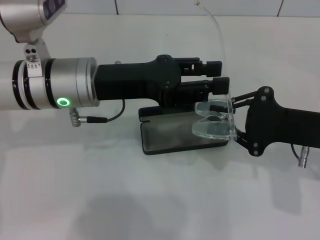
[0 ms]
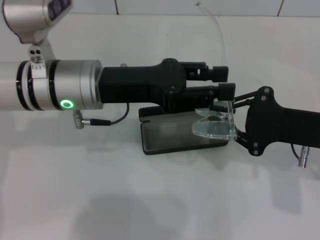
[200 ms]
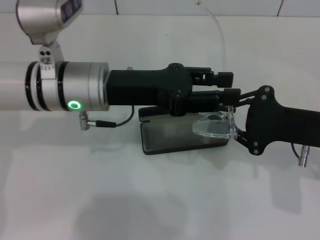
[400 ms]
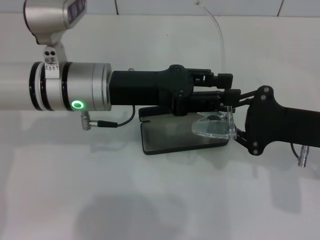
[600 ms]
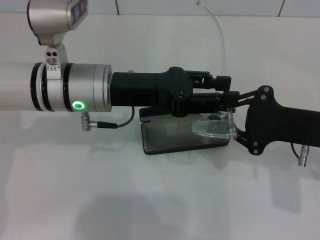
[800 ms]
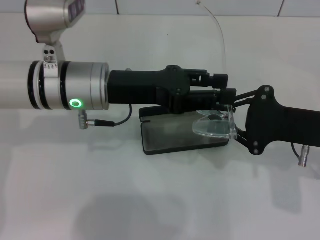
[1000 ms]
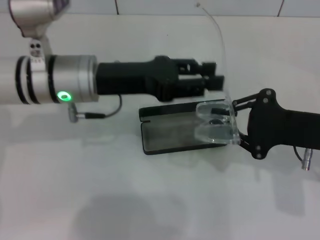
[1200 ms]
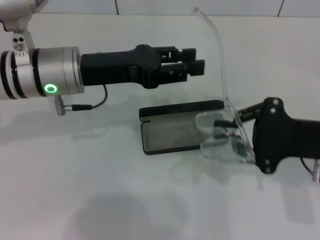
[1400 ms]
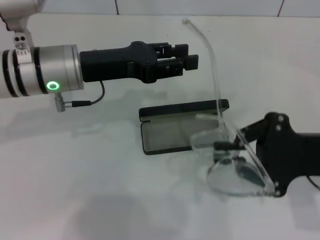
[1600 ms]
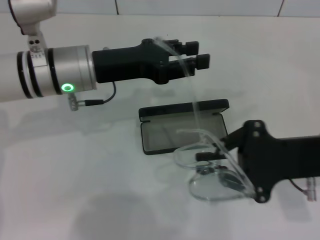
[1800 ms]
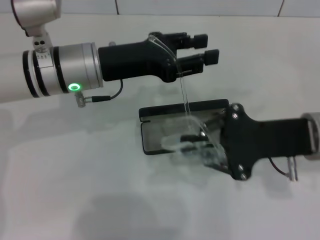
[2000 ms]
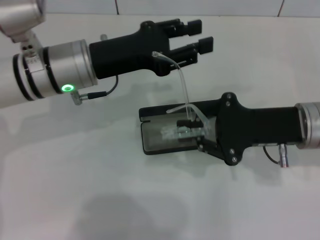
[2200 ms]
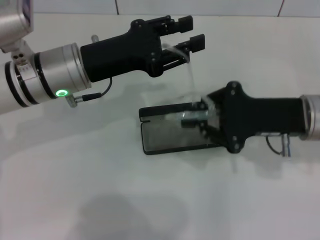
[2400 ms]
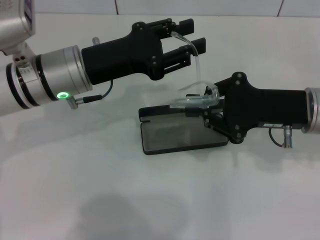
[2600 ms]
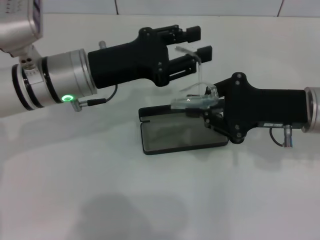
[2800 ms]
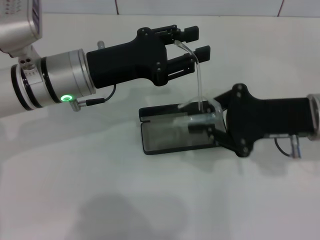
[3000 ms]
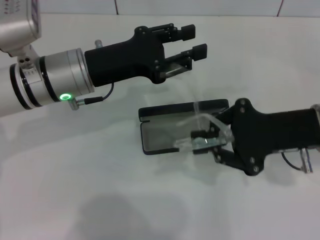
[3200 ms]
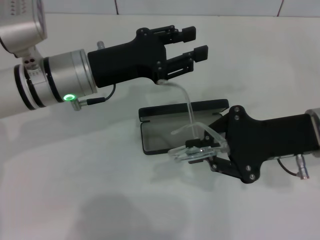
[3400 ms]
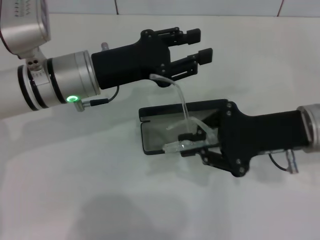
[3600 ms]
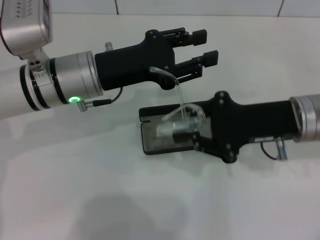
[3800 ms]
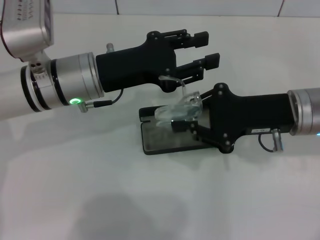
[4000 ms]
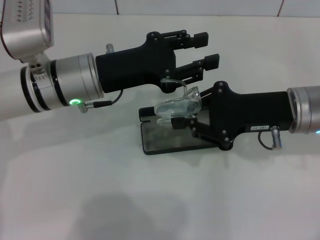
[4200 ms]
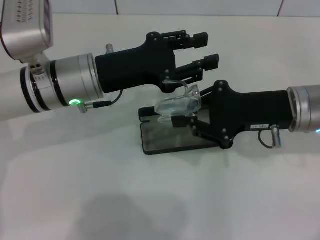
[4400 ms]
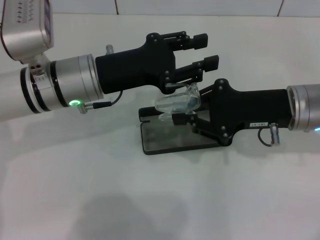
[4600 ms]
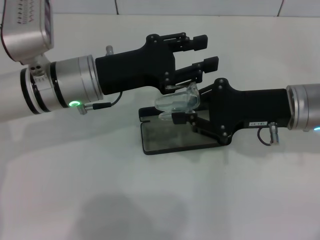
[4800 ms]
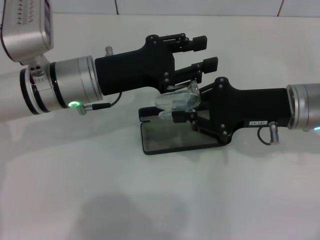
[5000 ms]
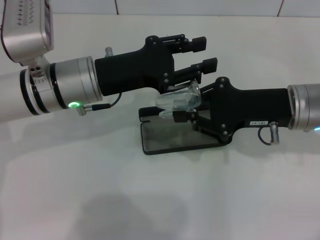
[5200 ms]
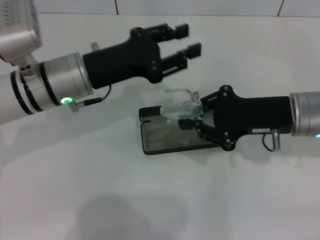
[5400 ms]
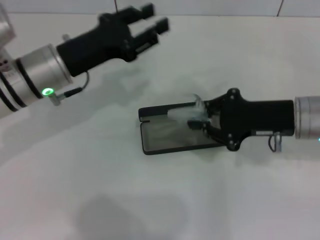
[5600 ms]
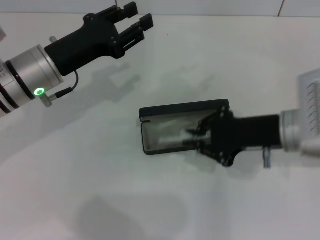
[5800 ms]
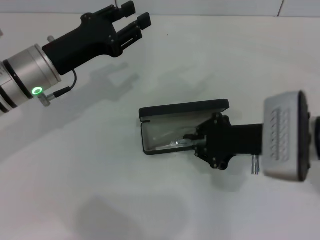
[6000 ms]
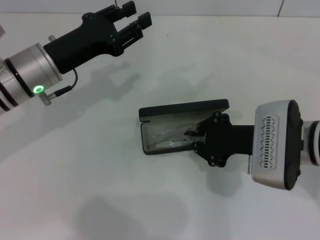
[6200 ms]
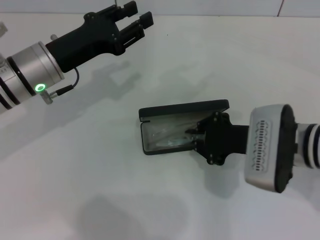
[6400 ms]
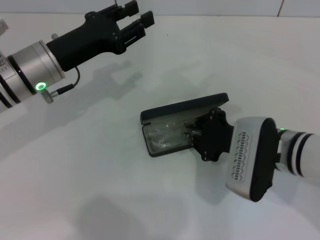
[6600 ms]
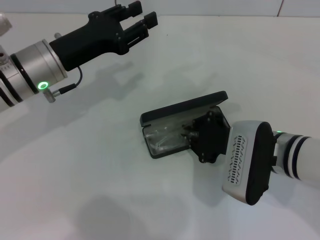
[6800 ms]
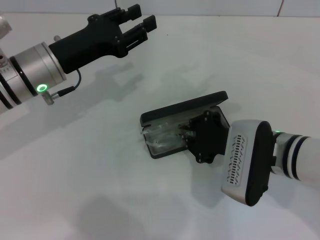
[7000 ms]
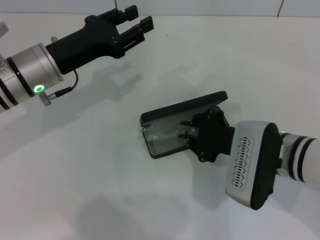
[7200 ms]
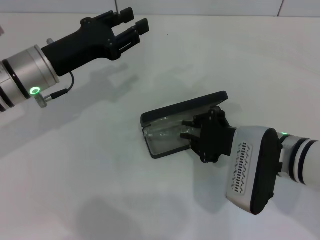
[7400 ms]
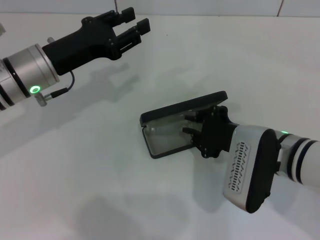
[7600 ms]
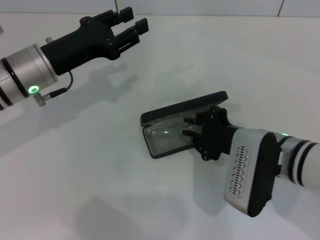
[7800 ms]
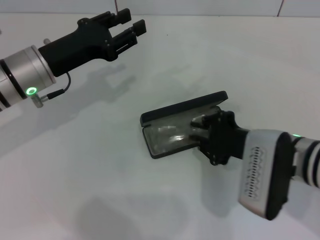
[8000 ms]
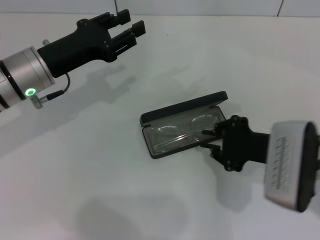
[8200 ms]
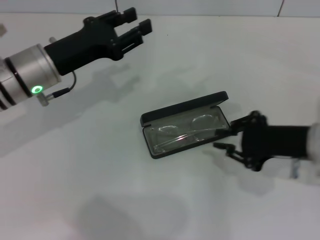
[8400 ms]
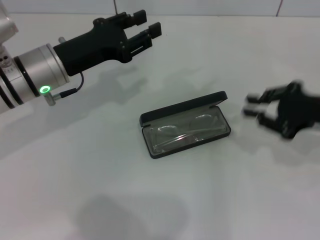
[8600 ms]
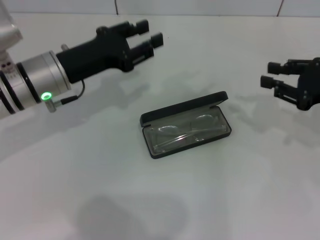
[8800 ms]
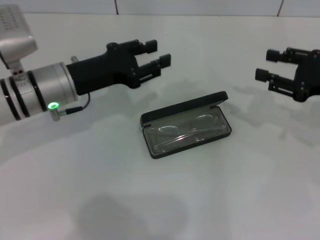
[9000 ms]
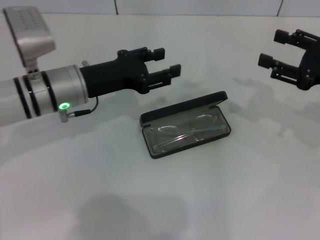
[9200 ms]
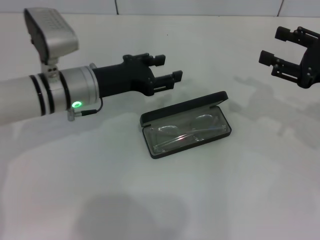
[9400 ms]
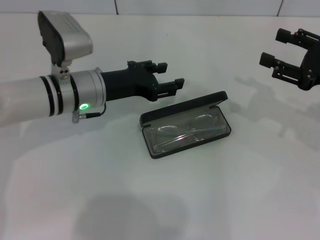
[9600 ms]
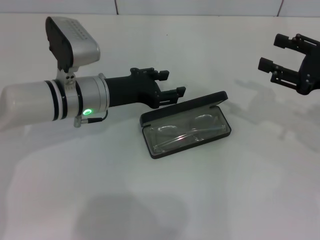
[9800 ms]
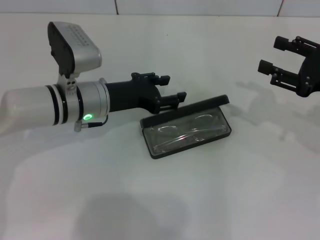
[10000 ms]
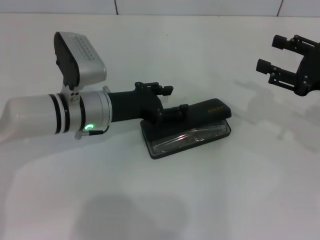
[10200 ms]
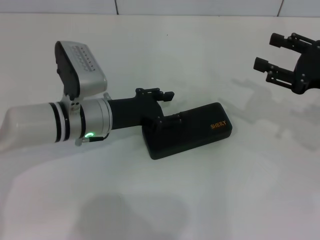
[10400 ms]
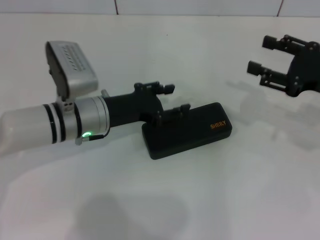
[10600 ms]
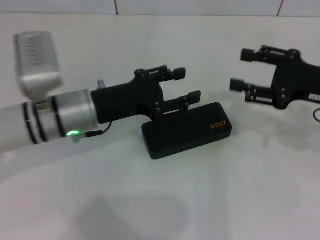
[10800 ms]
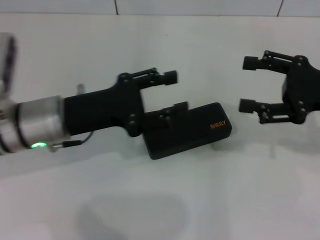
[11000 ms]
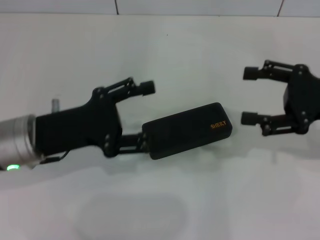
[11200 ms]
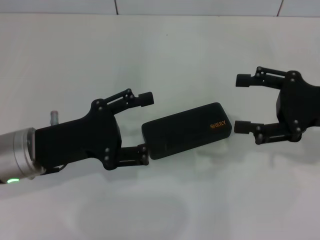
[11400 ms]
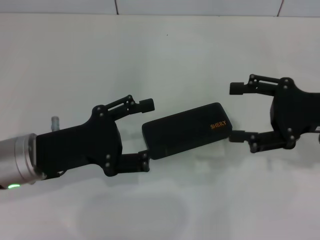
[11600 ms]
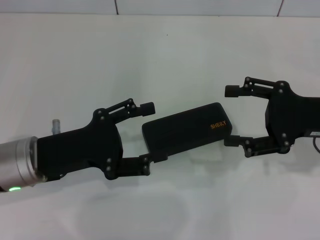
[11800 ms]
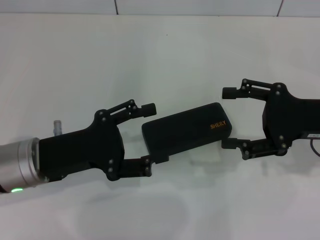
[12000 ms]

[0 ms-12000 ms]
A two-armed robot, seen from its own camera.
Step, 0 ms to 4800 ms: Fold the frame with your left hand.
Step, 5000 ms to 8000 ms: Put the glasses into the case with your right hand.
Step, 8200 ms to 10200 ms: Close the glasses case with your left hand.
1600 ms to 3000 ms: The right gripper goes about 5 cm forward.
3000 ms to 4400 ms: The grippers stay close to where they were, moving slightly.
4400 ms to 6000 ms: The left gripper is displaced to the left by roughly 5 cm.
7600 ms to 9000 ms: The right gripper travels to the right by roughly 15 cm.
9000 ms to 10400 ms: The left gripper moves about 5 cm. The right gripper opens its fingers.
10400 ms to 12000 ms: The left gripper is displaced backward and to the left by some 10 cm.

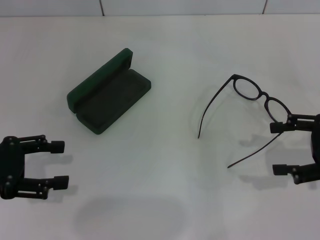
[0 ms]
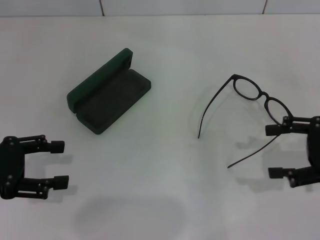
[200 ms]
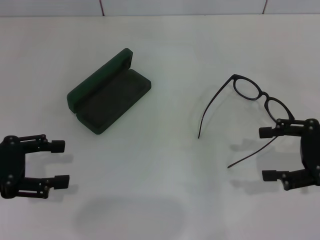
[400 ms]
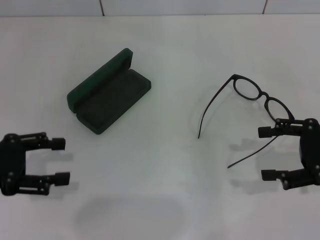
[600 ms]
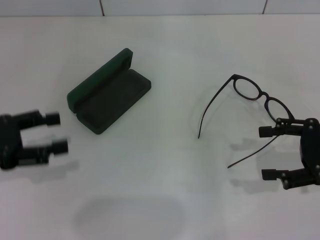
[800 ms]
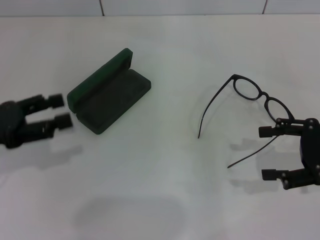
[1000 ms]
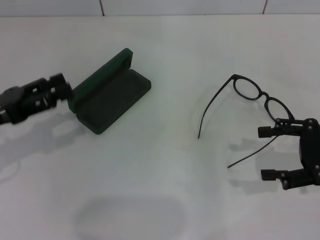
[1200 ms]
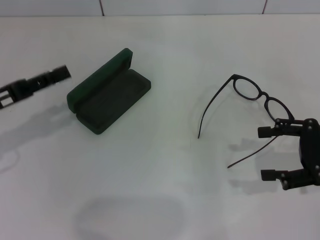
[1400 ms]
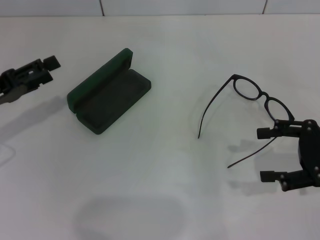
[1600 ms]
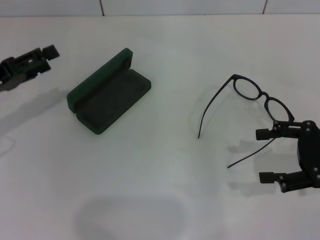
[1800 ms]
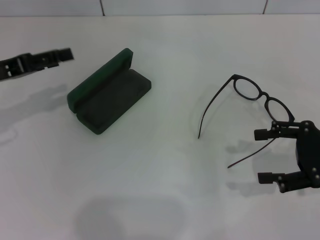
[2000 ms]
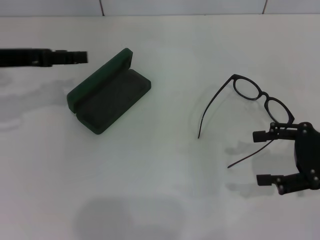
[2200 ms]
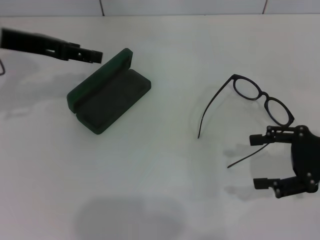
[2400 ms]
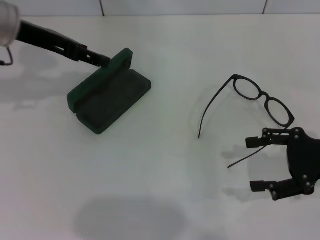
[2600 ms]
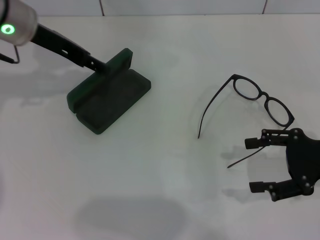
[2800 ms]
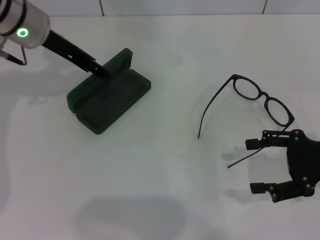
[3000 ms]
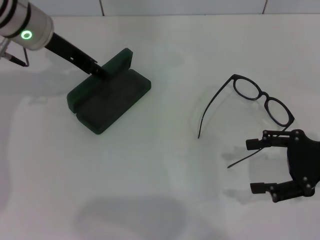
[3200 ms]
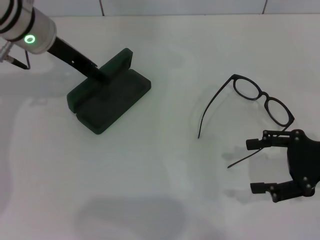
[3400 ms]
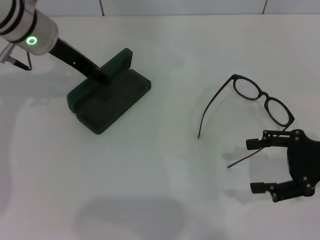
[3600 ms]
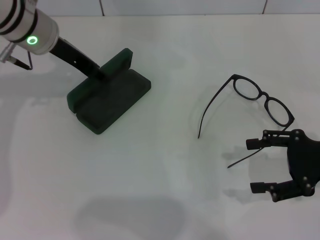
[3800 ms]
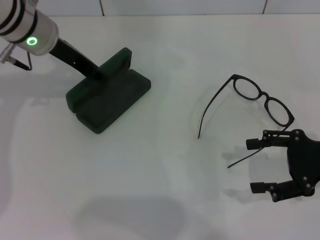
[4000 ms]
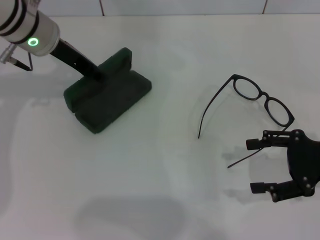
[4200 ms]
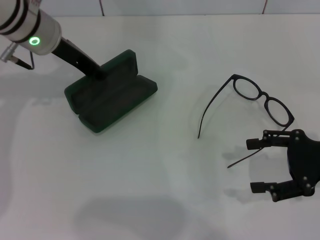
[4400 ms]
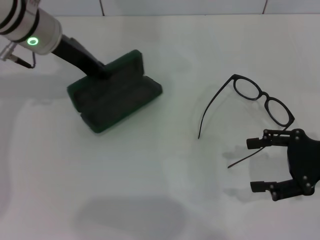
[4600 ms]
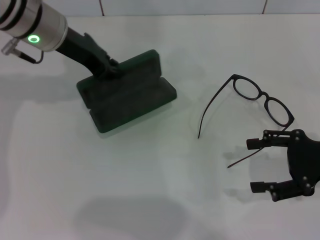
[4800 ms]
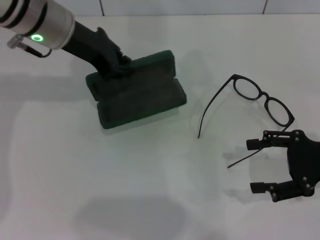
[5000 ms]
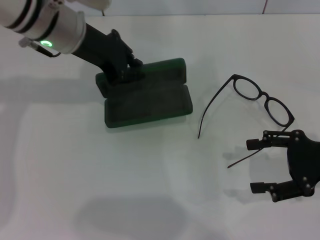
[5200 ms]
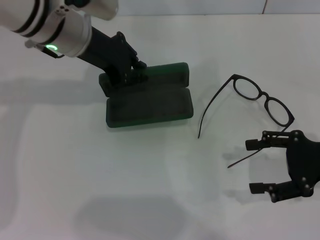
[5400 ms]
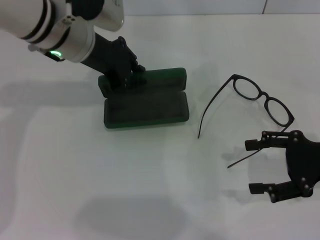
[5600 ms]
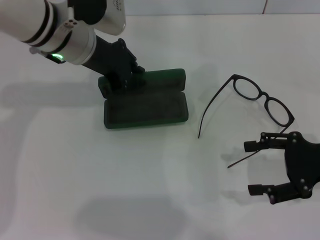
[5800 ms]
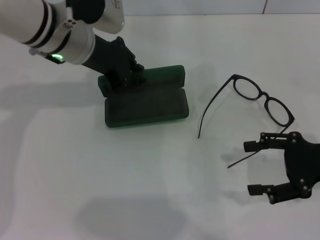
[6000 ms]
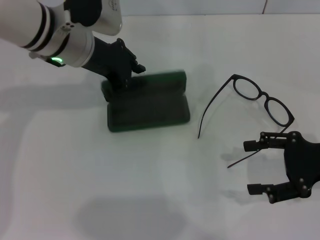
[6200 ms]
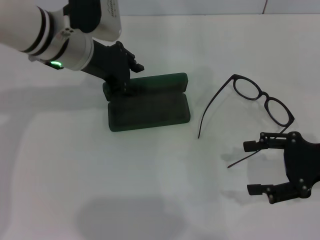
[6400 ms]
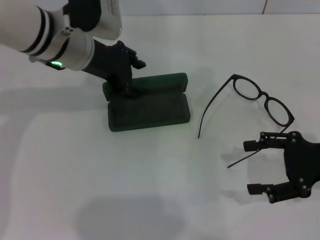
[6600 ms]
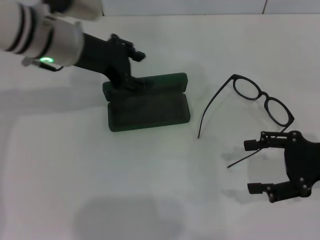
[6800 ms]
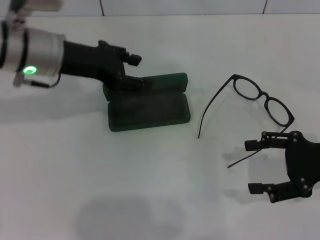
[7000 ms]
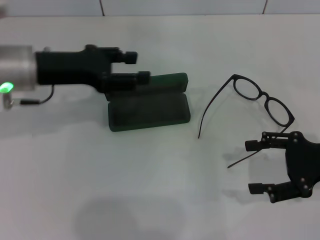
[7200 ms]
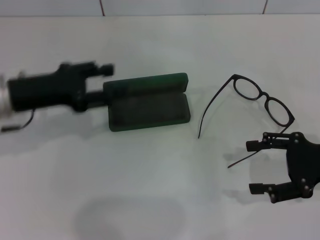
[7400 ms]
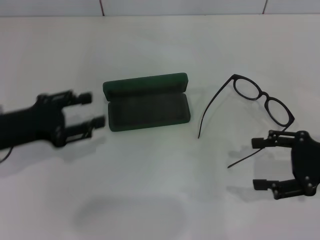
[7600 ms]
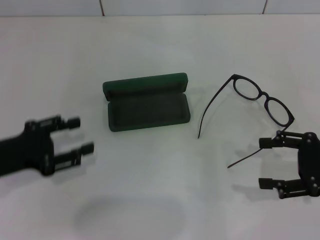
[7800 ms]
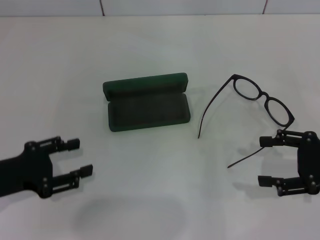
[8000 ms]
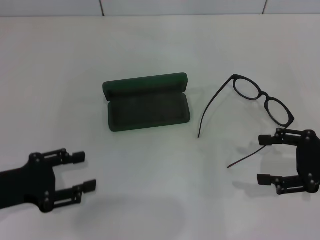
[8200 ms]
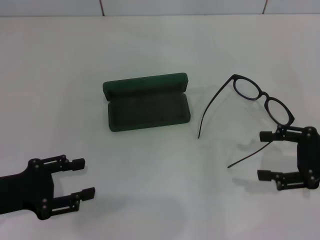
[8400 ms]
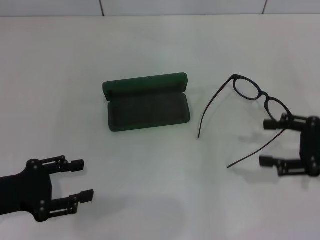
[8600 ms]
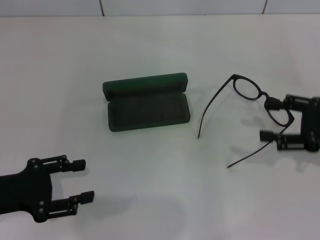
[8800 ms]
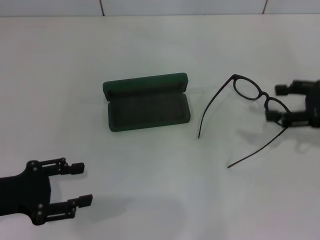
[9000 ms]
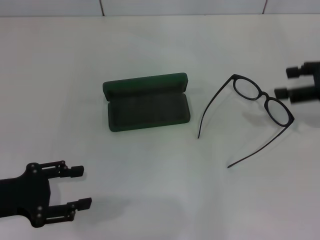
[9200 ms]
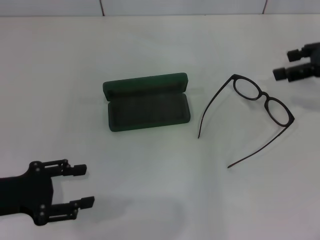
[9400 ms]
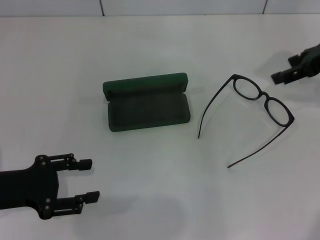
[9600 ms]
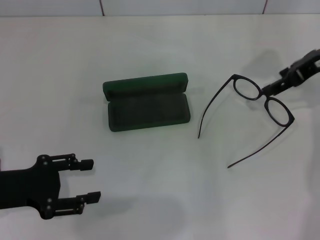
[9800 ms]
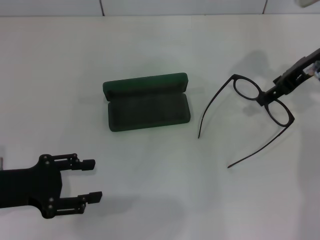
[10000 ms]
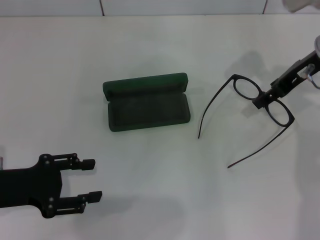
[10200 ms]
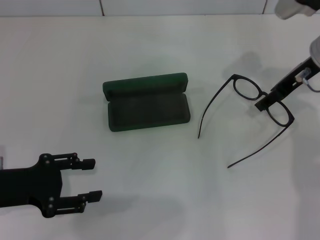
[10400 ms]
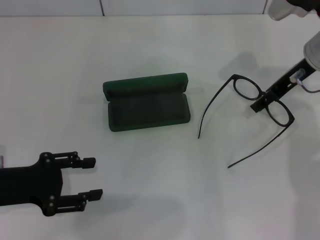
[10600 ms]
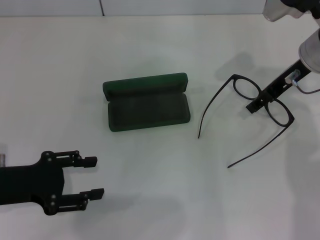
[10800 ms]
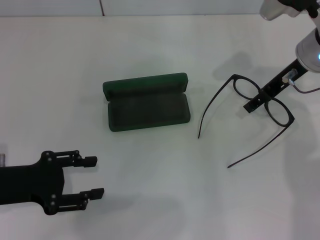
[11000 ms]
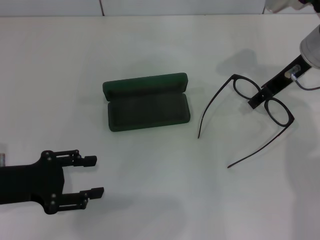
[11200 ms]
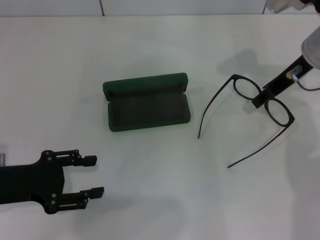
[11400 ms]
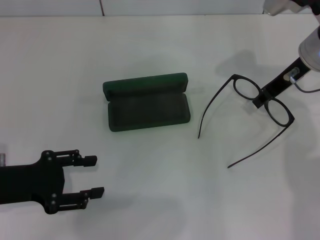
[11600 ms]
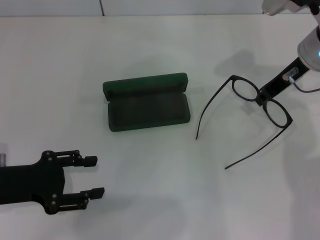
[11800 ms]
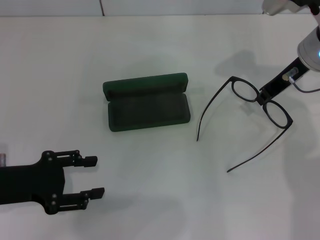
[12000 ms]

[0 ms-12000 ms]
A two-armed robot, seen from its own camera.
Step, 0 ms to 4400 ms: Grab the glasses case with your left hand.
Step, 4600 ms to 6400 ms: Place the glasses case in the center of the table with your left hand.
Step, 6600 ms to 11800 ms: Grab the eyeglass frame with your right hand.
0 ms to 1600 ms: The left gripper shifts by approximately 5 cm.
1600 ms to 3000 ms: The left gripper moves forward, to the right and upward, about 20 cm.
3000 ms to 4400 ms: The left gripper closes.
6000 ms to 7600 ms: The left gripper moves to the left, backward and downward, approximately 20 cm, and opens its fingers.
7600 ms to 9000 ms: The right gripper is displaced forward by about 5 cm, while the left gripper goes roughly 5 cm backward.
9000 ms to 10400 ms: The right gripper moves to the left and forward, about 15 cm.
10400 ms to 12000 ms: The right gripper closes up.
